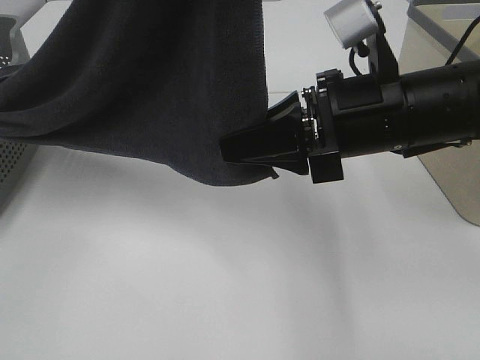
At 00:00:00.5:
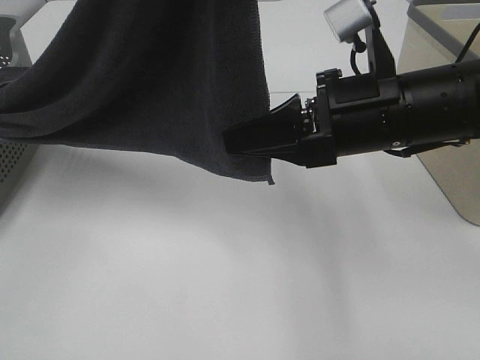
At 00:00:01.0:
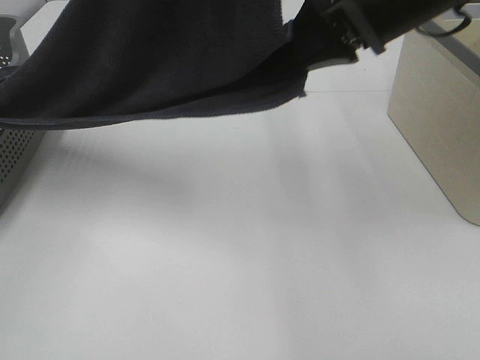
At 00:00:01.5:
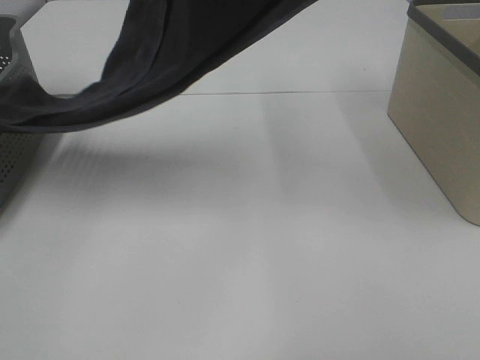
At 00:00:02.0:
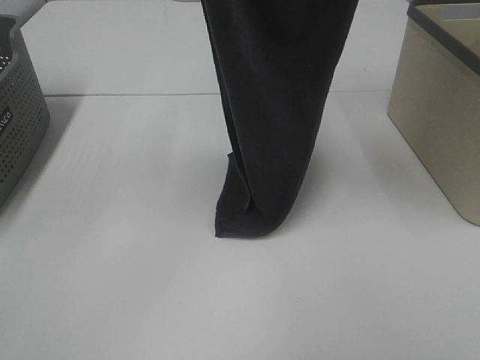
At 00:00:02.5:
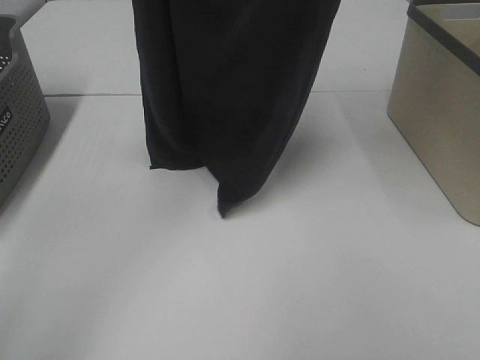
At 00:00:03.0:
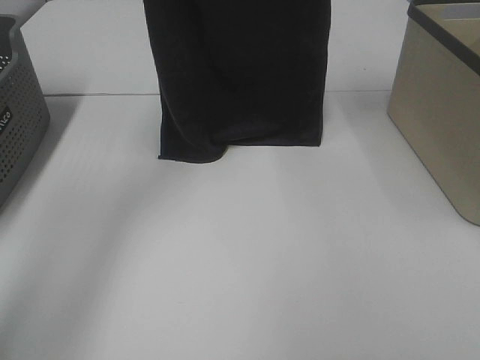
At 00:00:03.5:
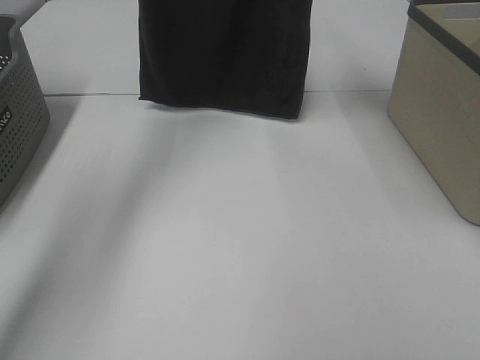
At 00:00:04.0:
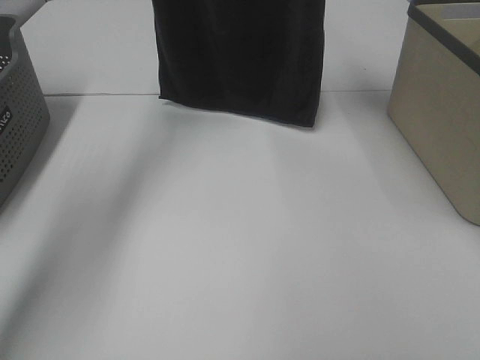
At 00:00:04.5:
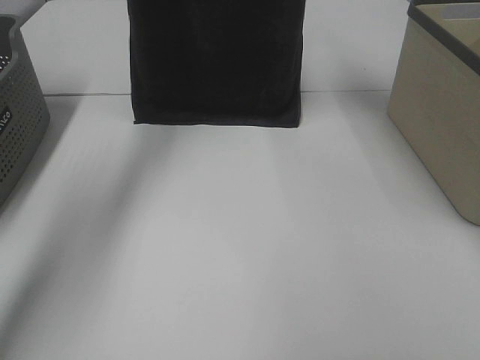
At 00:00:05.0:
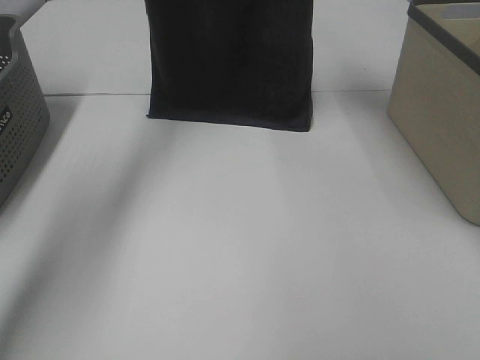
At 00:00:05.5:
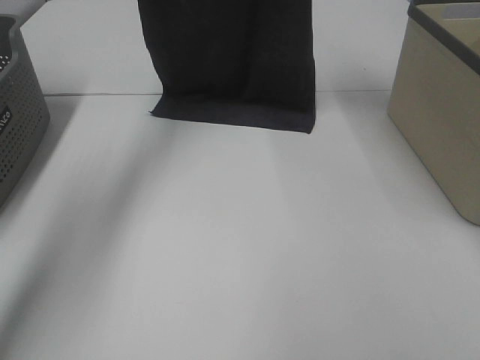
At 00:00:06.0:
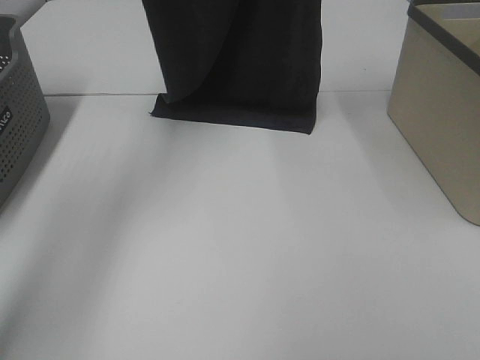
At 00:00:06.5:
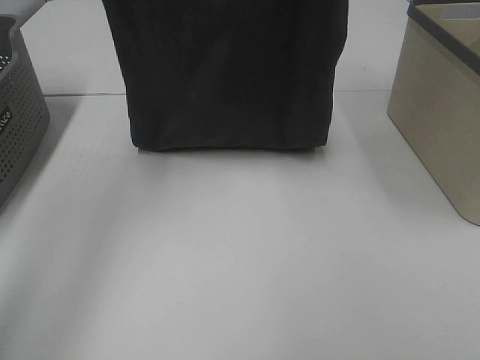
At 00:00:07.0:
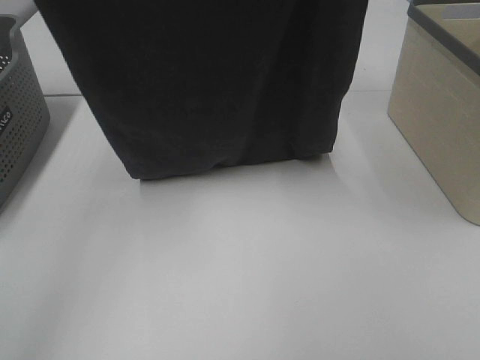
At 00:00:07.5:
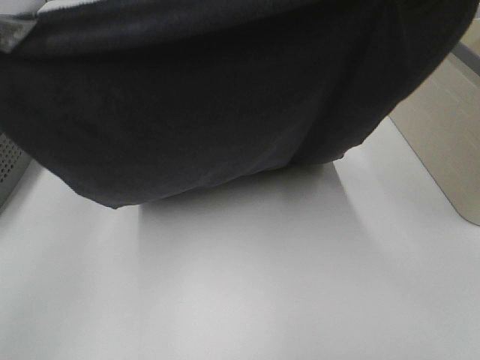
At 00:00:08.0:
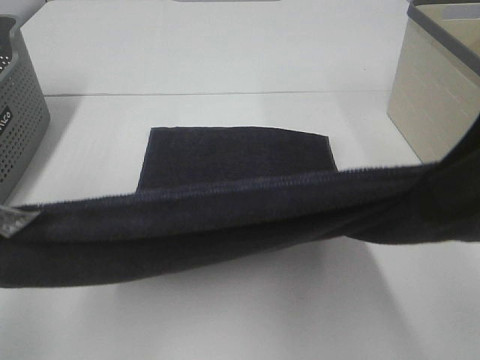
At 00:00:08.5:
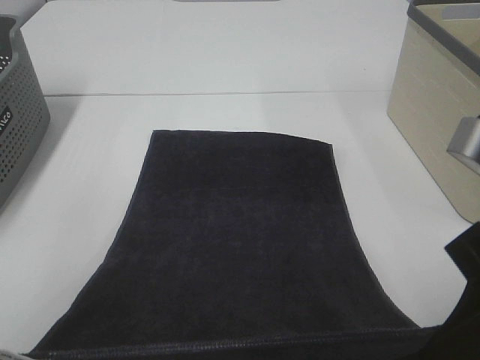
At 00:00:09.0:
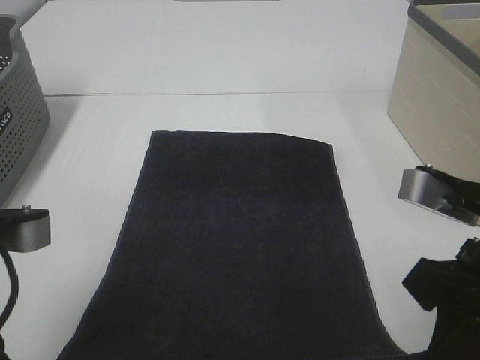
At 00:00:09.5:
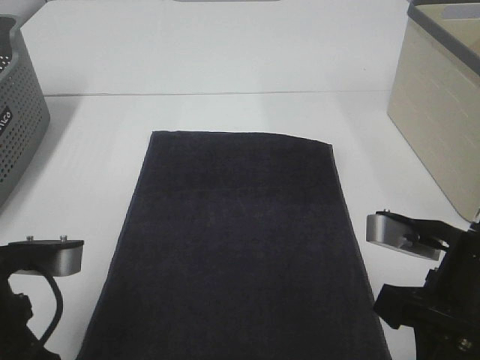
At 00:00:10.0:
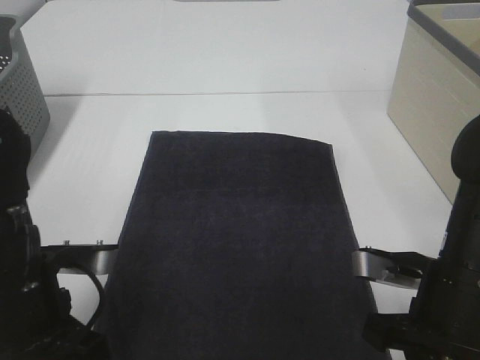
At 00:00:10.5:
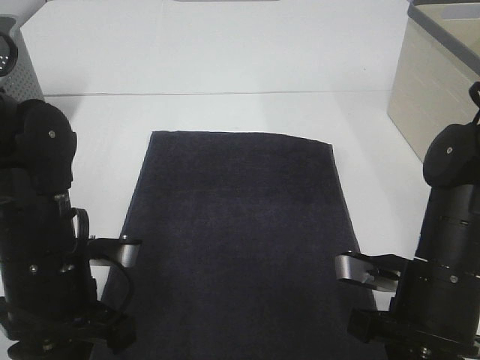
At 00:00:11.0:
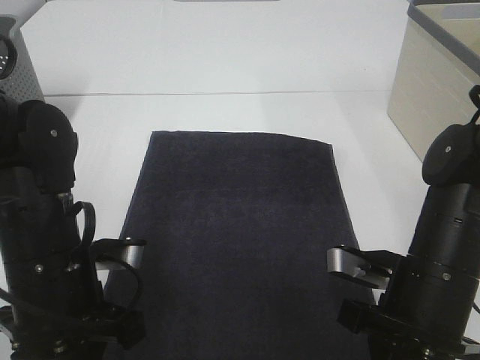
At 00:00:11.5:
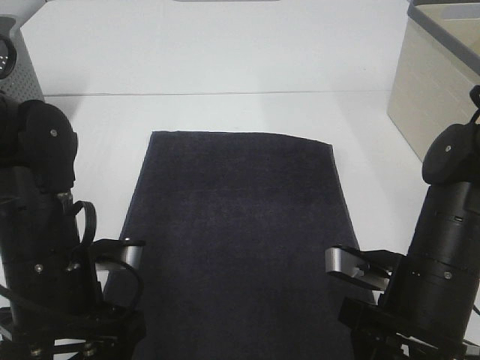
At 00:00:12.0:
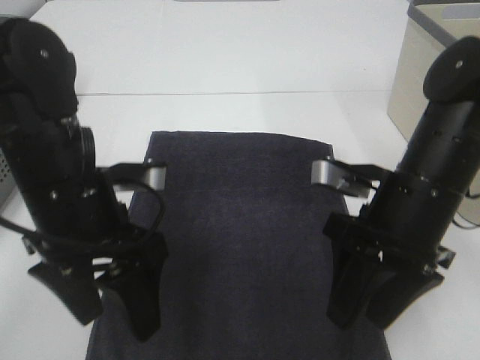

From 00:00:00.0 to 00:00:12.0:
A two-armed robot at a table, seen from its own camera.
Task of the whole recording: Remove the towel and place it.
Step, from 00:00:00.5 to 00:00:06.5: Left hand: spread the grey towel flat on the table.
Step, from 00:00:00.5 to 00:00:06.5: Right hand: spread the grey towel flat on the table.
From 00:00:00.0 to 00:00:02.0: The right gripper travels upward by some 30 cm. Meanwhile the left gripper shifts approximately 10 cm forward and to the left.
From 00:00:02.0 to 00:00:04.0: The right gripper is displaced forward by approximately 10 cm; the left gripper goes approximately 20 cm forward.
From 00:00:04.0 to 00:00:06.0: The left gripper moves backward, about 5 cm.
From 00:00:06.0 to 00:00:08.0: Both grippers move backward and downward, about 30 cm.
From 00:00:08.0 to 00:00:10.0: The grippers both shift downward by some 20 cm.
From 00:00:10.0 to 00:00:12.0: Both grippers travel together forward, roughly 5 cm. The right gripper opens up; the left gripper opens.

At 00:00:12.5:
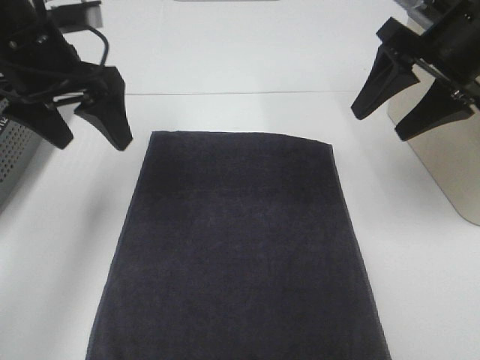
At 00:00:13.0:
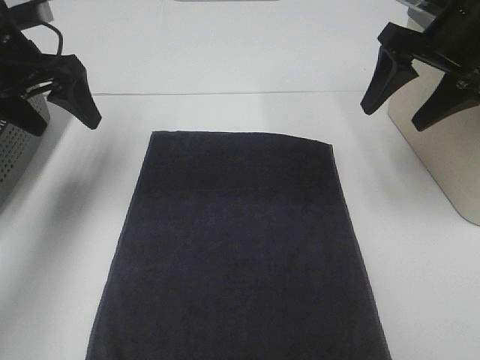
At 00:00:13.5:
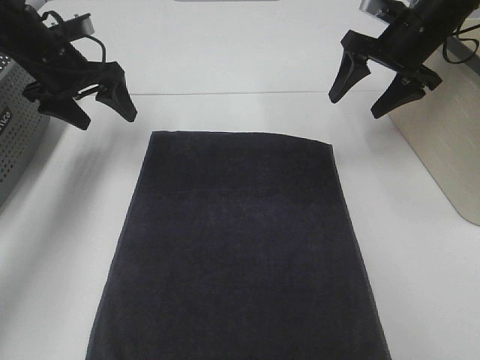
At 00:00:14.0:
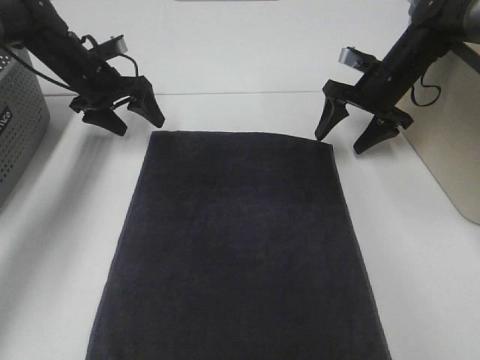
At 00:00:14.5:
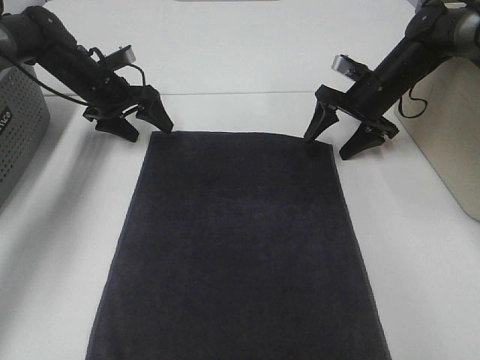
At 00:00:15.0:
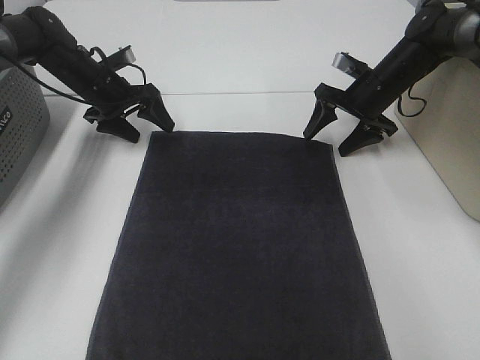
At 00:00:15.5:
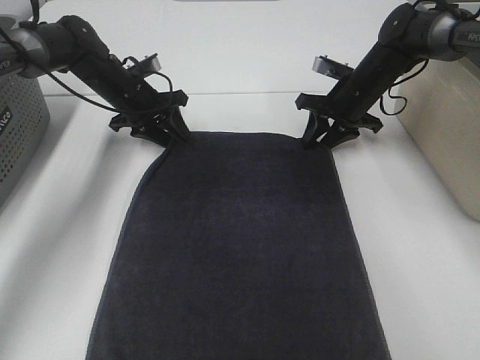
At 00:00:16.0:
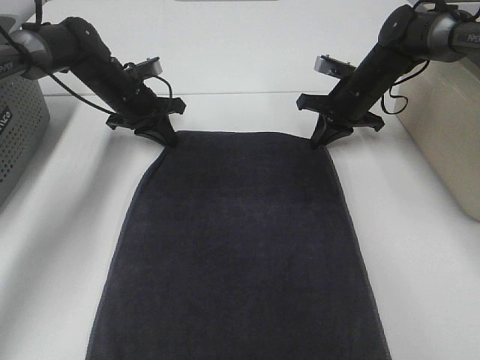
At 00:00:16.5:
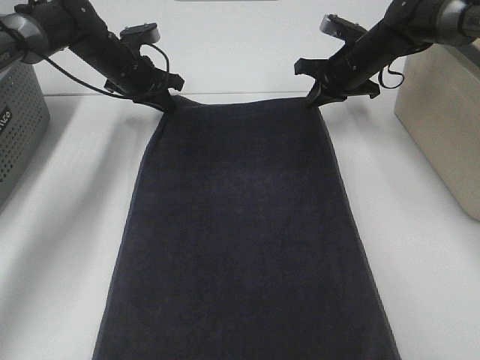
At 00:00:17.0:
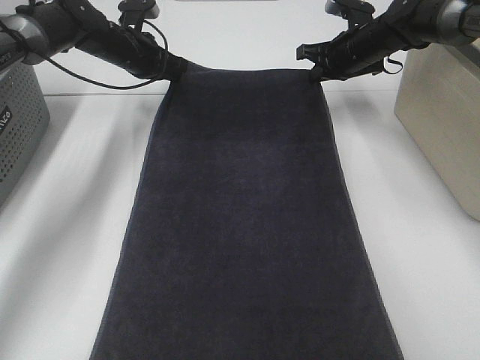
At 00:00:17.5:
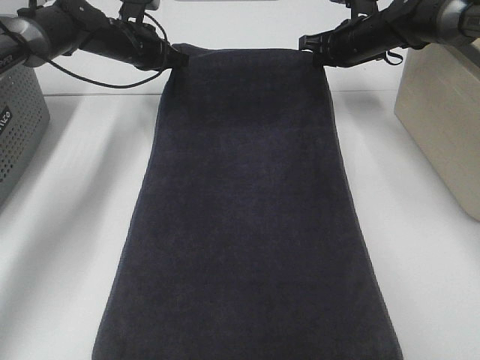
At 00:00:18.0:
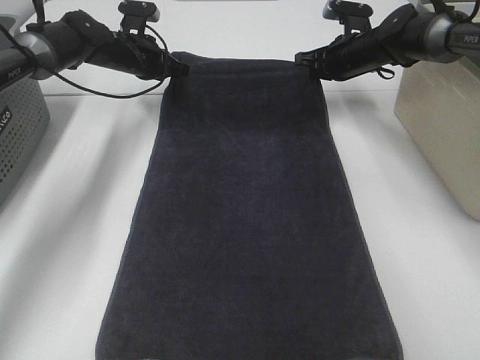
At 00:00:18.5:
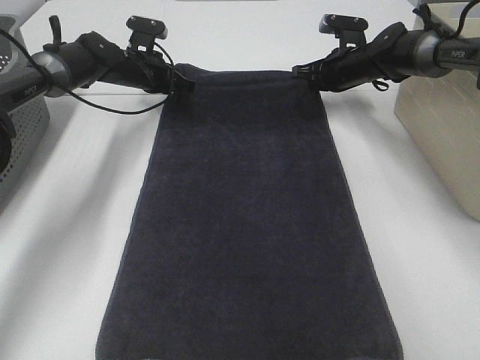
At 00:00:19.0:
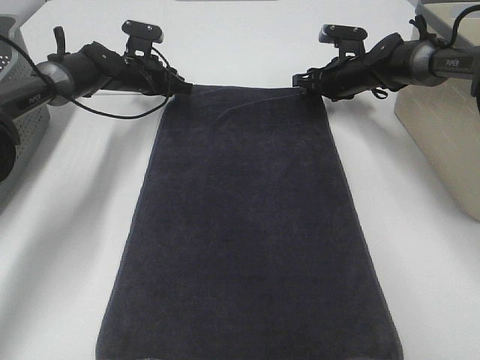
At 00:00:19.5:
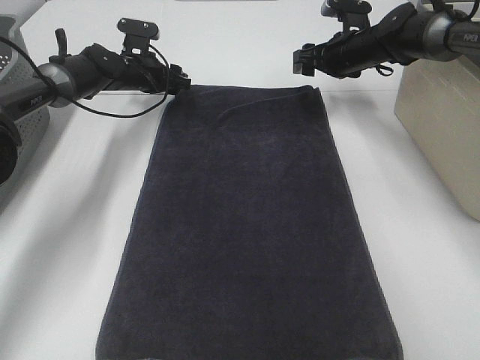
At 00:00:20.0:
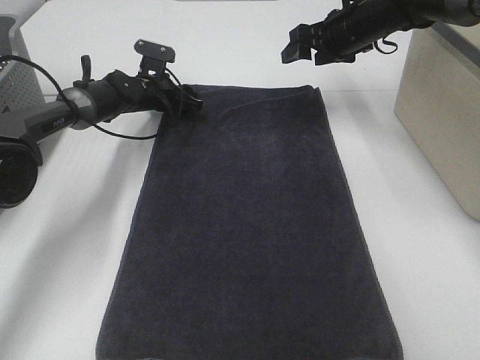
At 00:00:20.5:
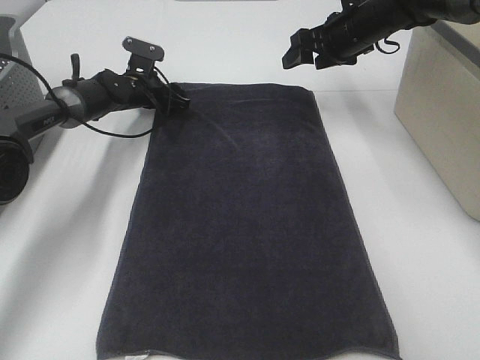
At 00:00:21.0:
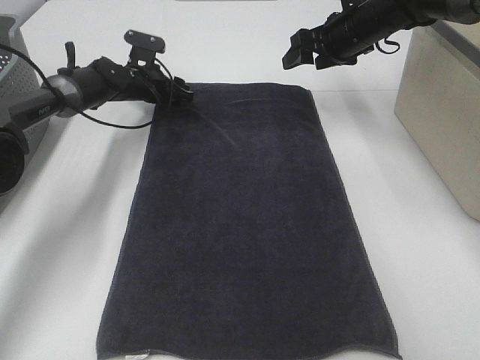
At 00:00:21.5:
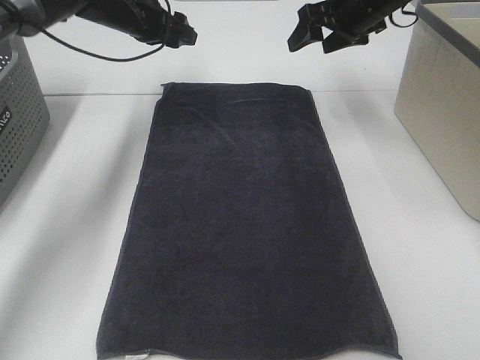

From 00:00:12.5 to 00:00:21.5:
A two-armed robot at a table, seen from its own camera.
Task of the whole recording: Remove the towel and place it.
Step, from 00:00:12.5 to 00:00:14.5: Left hand:adjust the gray towel.
From 00:00:12.5 to 00:00:14.5: The left gripper goes some 25 cm forward and downward; the right gripper moves downward and forward, approximately 25 cm.
From 00:00:14.5 to 00:00:17.0: The right gripper heads forward, covering some 5 cm, and closes up, while the left gripper shifts by some 5 cm, and closes up.
From 00:00:17.0 to 00:00:19.5: The left gripper moves downward, about 5 cm, and opens. Meanwhile the right gripper opens.
From 00:00:19.5 to 00:00:21.5: The right gripper goes about 10 cm upward and backward. Meanwhile the left gripper goes about 15 cm upward.

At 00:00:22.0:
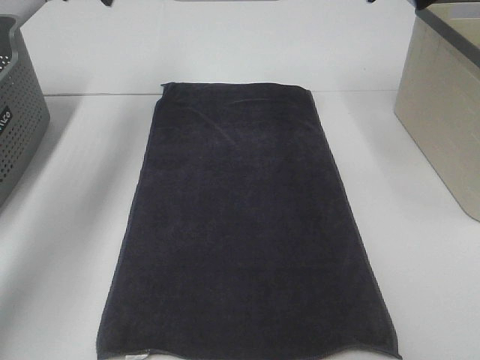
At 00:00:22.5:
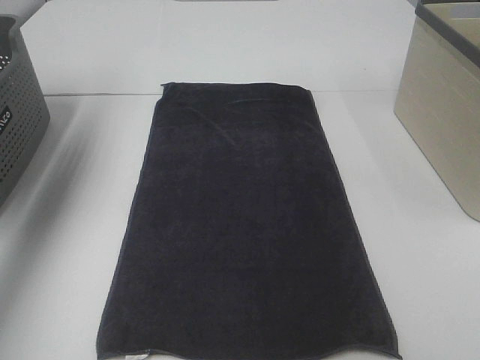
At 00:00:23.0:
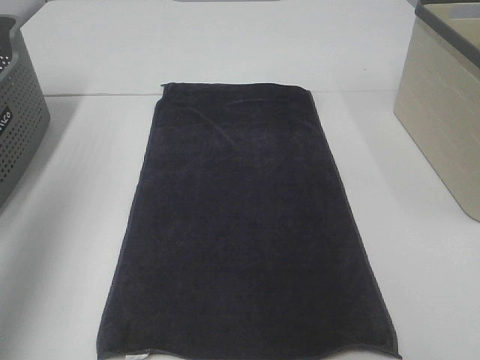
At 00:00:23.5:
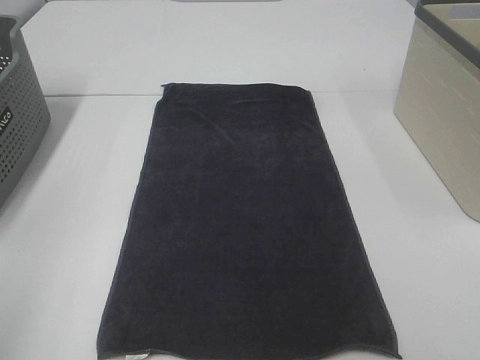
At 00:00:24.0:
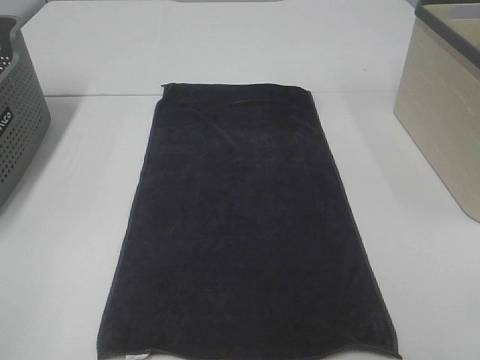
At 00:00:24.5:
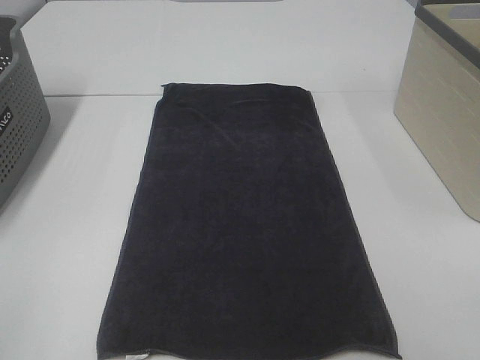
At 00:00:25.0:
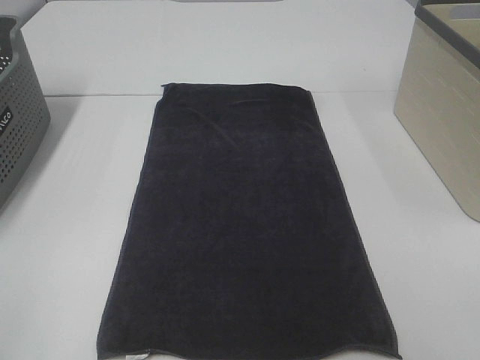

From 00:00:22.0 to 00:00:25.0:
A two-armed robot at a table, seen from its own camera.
Task of the whole recording: Remove the towel and place it.
From 00:00:22.0 to 00:00:23.5: The left gripper is displaced backward by about 40 cm.
